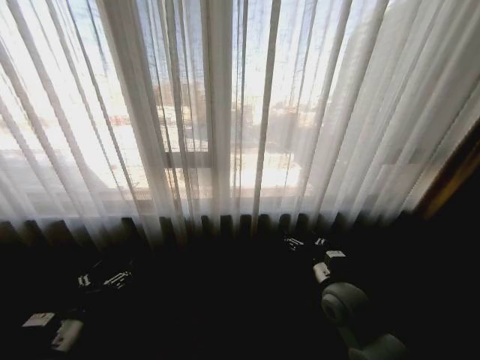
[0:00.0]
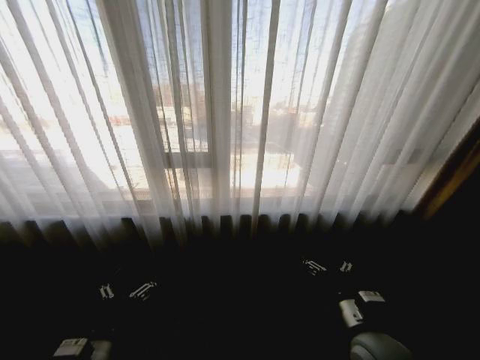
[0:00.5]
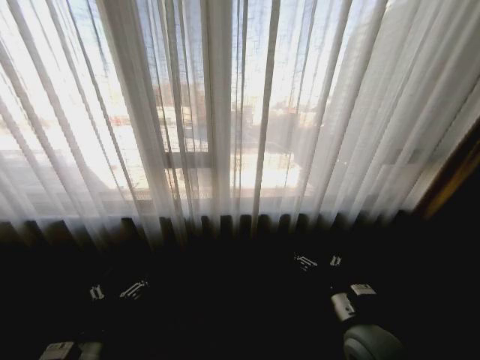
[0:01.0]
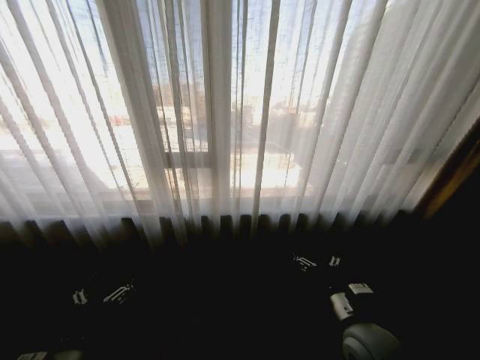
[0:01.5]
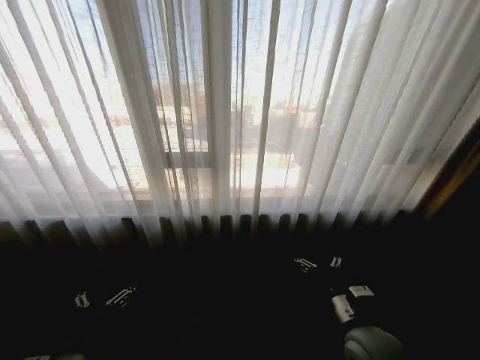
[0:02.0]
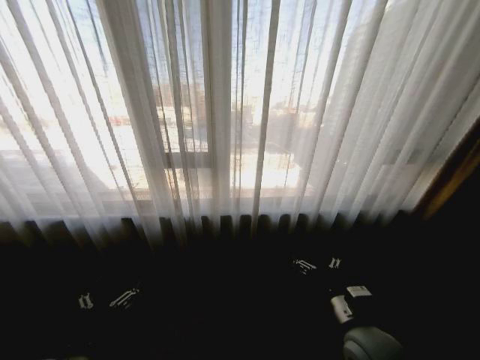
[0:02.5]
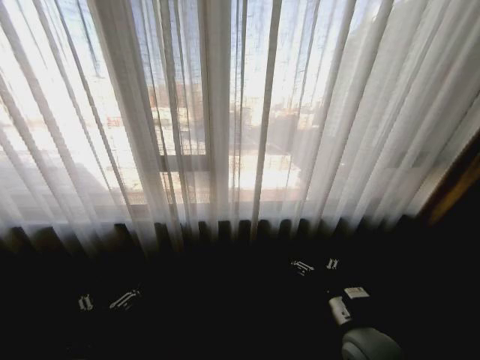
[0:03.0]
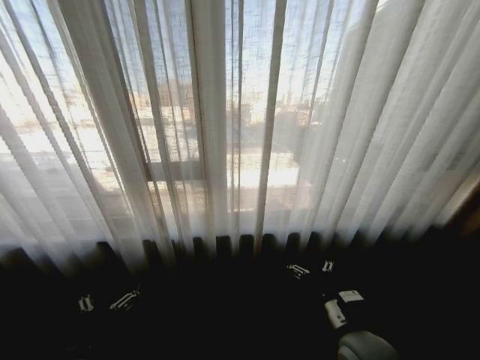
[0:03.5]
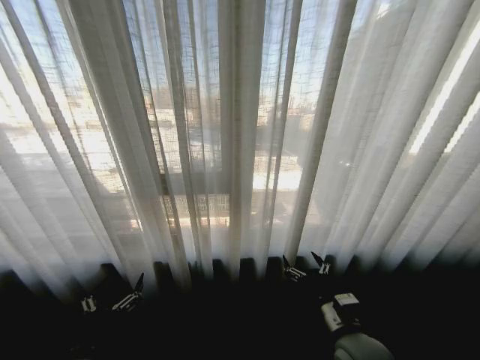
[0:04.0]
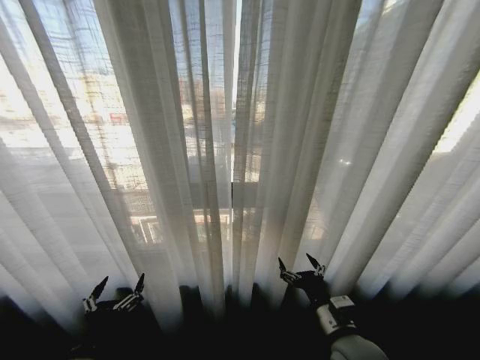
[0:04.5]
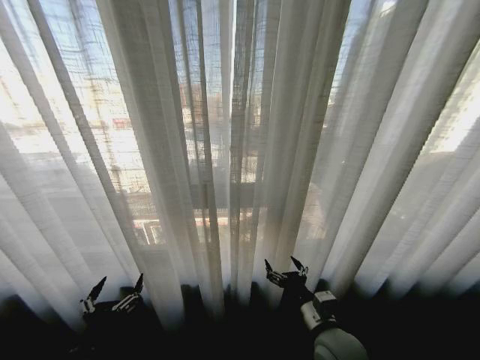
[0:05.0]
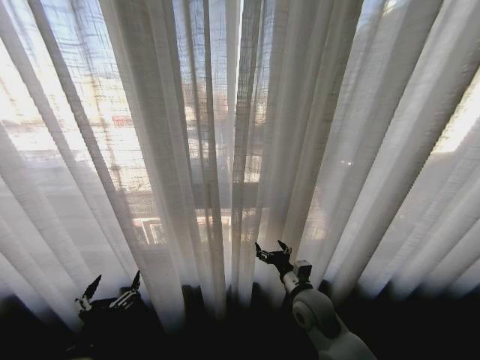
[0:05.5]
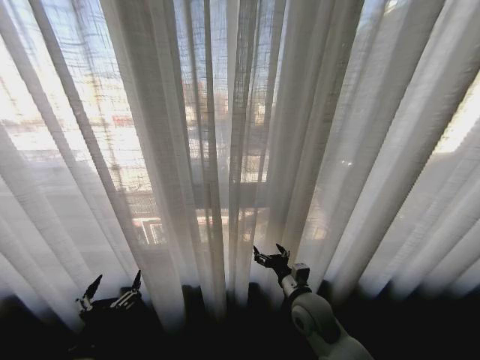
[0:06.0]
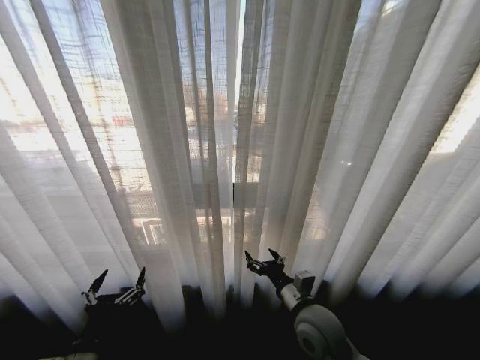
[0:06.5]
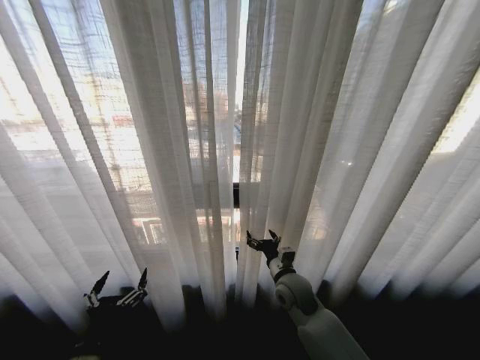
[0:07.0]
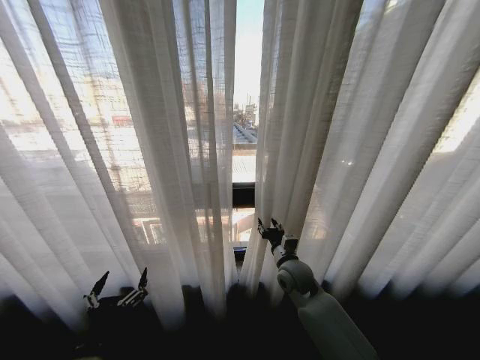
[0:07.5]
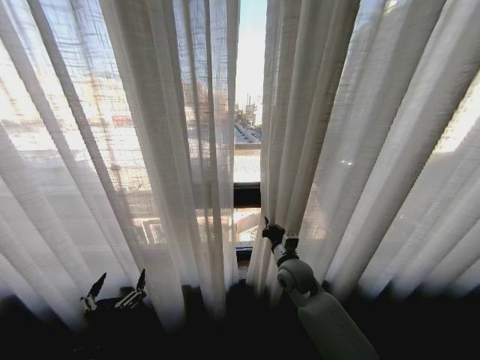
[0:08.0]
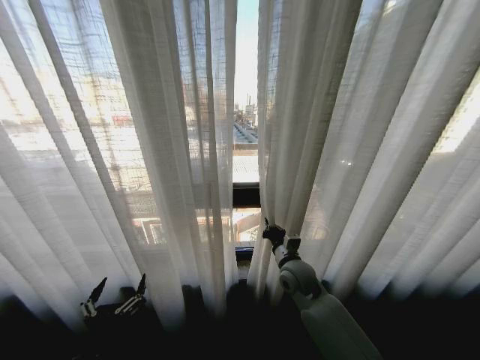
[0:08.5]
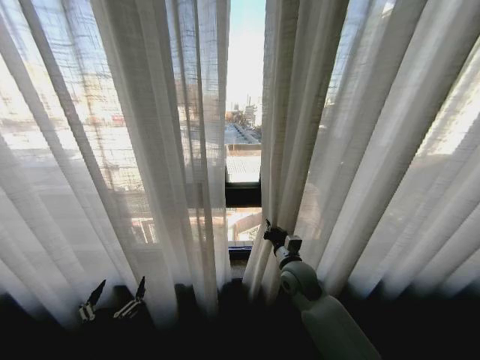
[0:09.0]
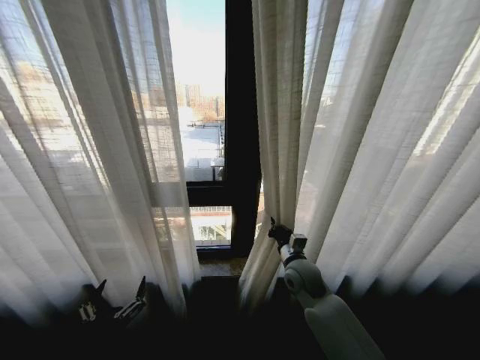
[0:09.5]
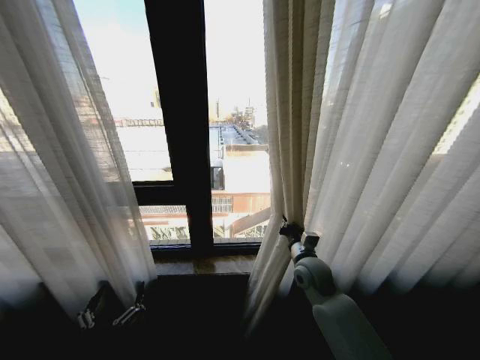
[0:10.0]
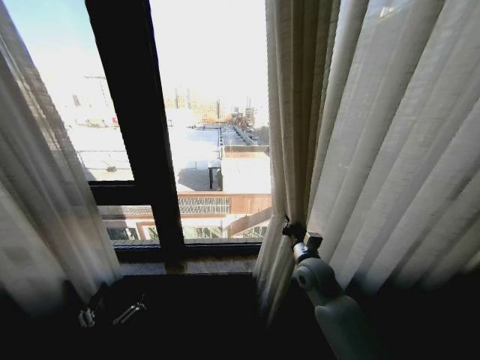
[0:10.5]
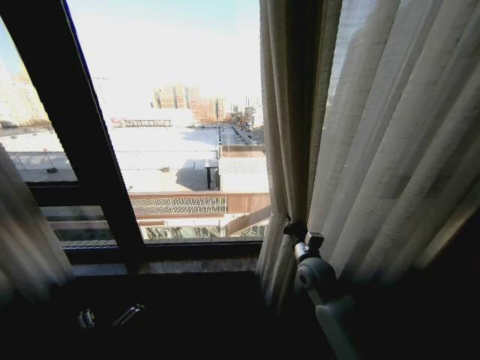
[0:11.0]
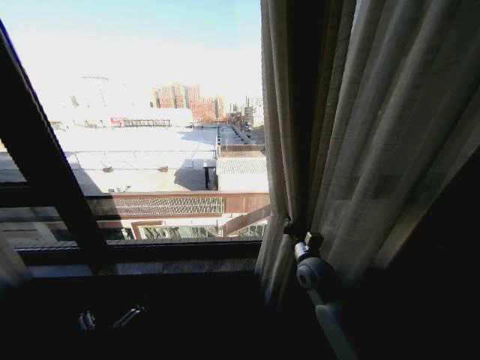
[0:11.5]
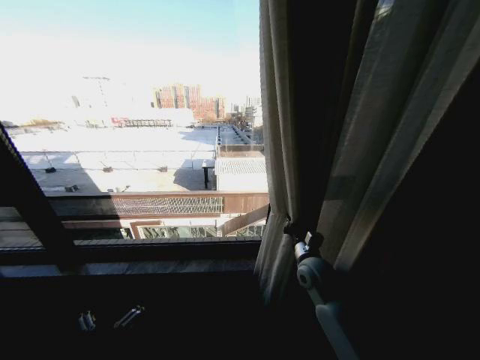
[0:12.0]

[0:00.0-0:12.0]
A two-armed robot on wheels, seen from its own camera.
Task of the whole recording: Open the curtains by pulling them apart, changing their state from closed to fully open.
0:04.0 to 0:06.0: The right gripper travels forward and to the left by approximately 10 cm.
0:06.0 to 0:08.0: The right gripper heads forward, covering approximately 10 cm, and closes.

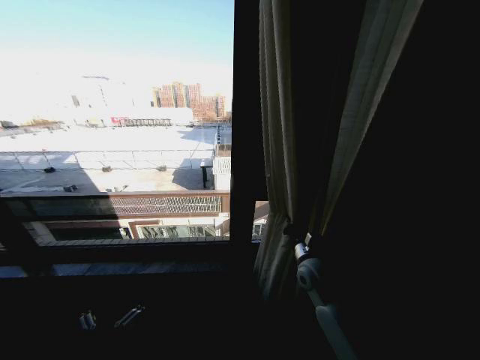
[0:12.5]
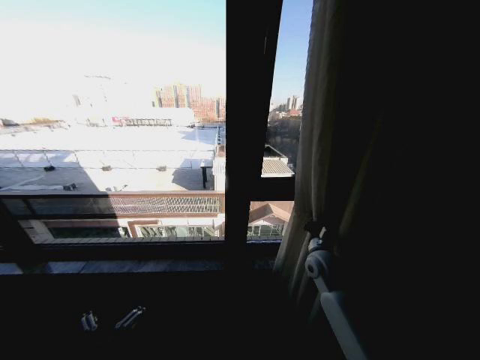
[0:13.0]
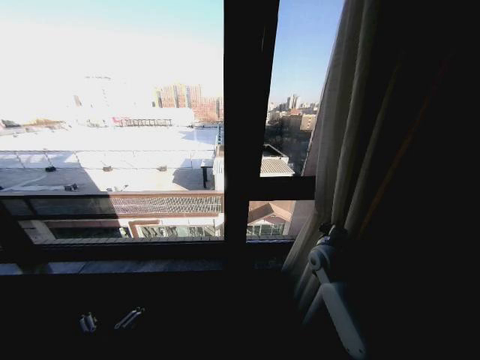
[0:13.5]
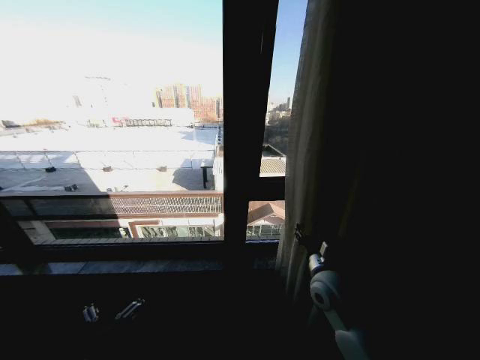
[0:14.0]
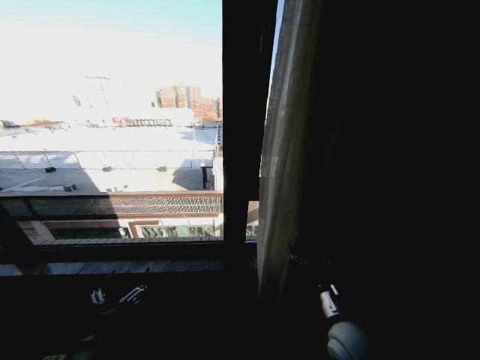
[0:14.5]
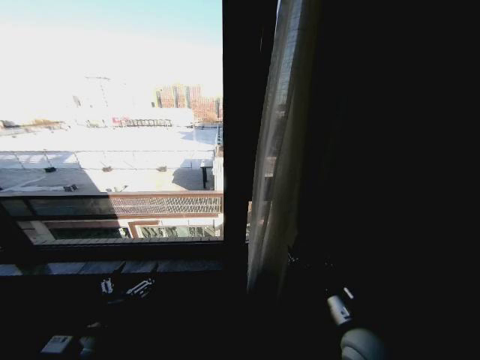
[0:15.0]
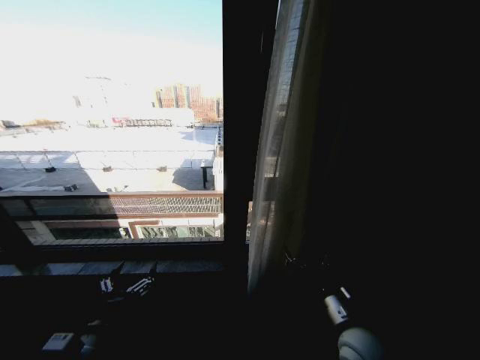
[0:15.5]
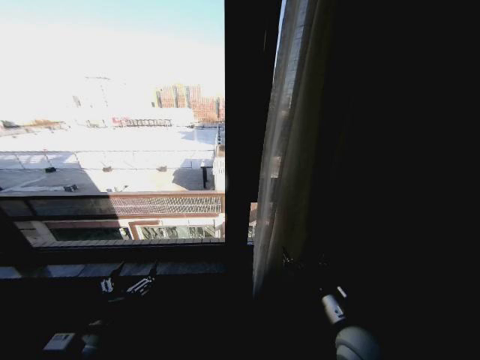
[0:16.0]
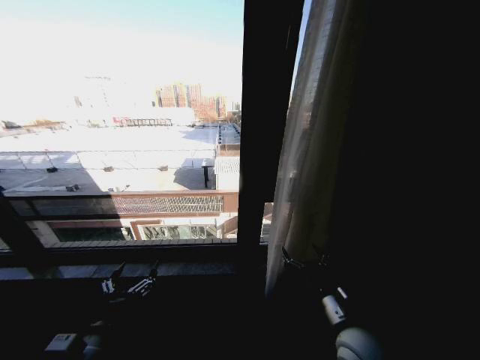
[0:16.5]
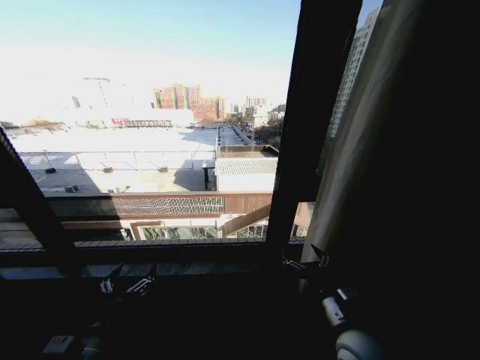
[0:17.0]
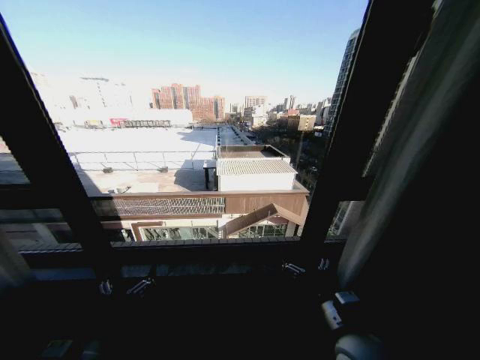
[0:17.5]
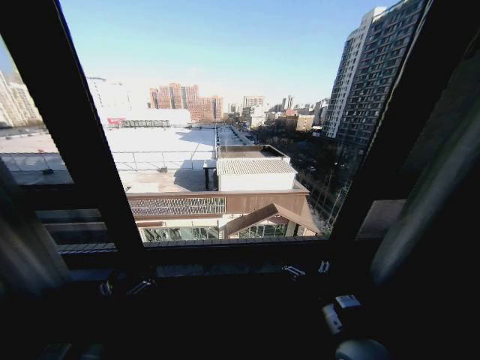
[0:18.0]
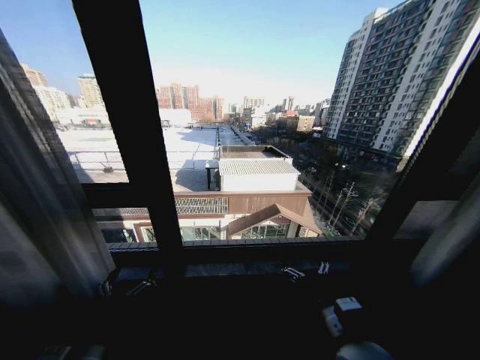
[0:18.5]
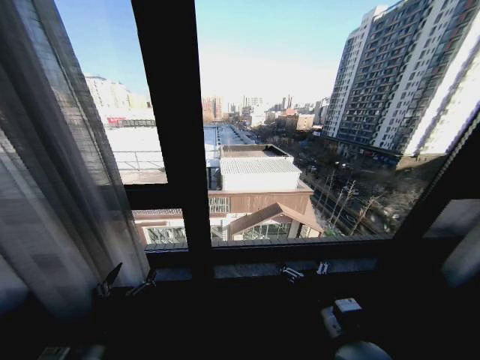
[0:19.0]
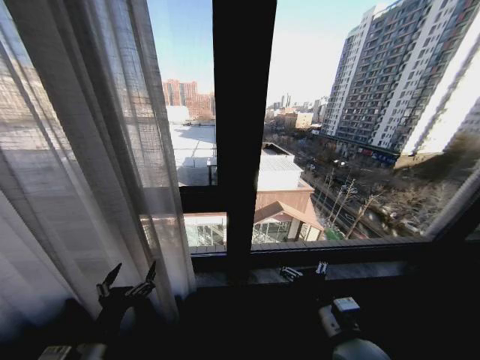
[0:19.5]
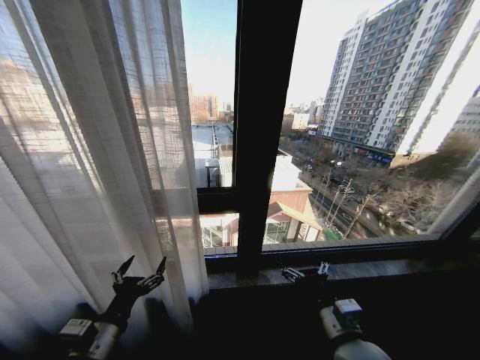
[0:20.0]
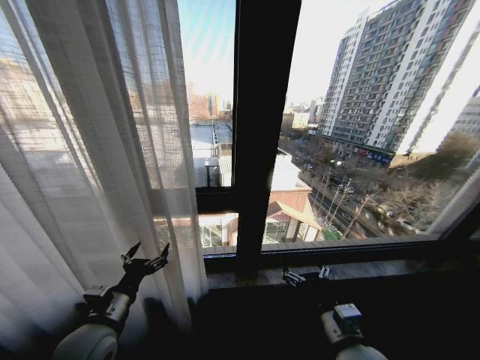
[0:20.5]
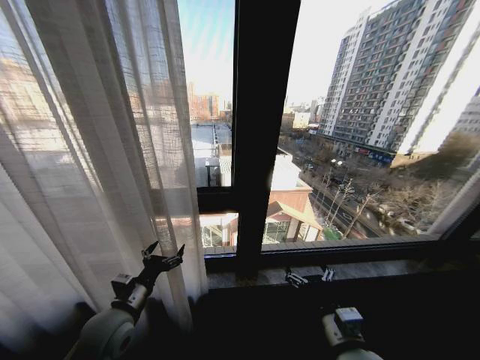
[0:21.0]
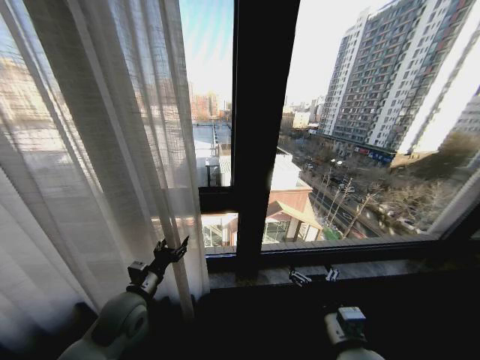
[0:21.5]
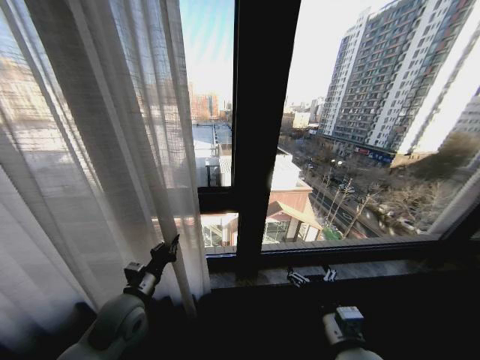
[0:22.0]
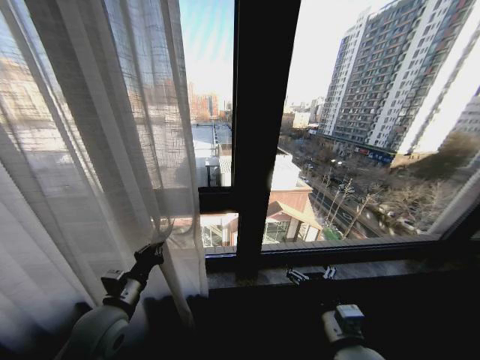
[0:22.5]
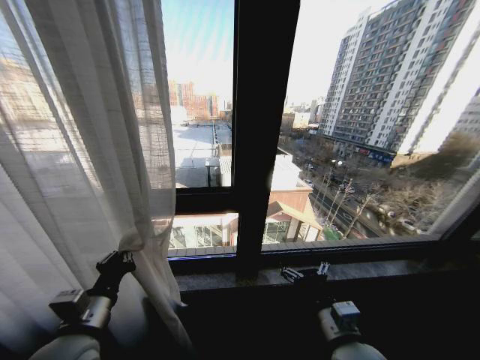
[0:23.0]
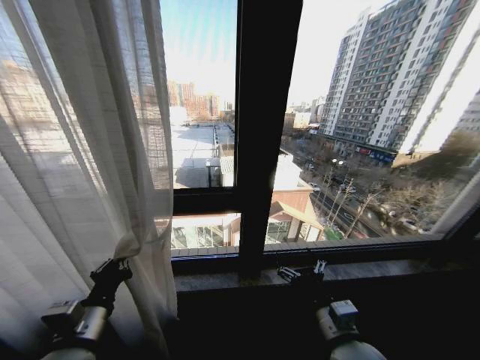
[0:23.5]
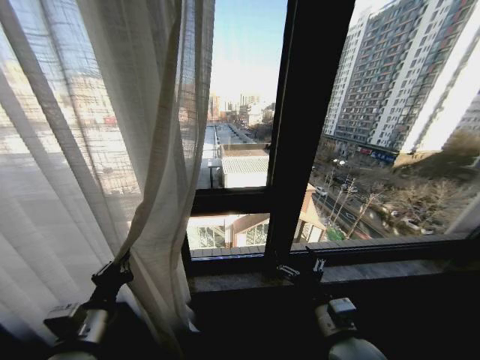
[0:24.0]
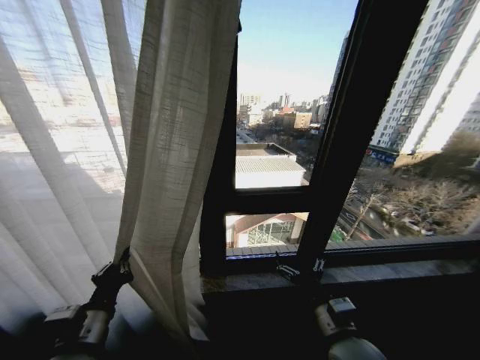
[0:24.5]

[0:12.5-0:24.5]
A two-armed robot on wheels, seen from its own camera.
Task of the whole recording: Open the curtains by pulling them apart, changing their state from closed to fully open.
0:12.5 to 0:14.5: The left gripper changes place by approximately 5 cm; the right gripper travels backward by roughly 15 cm, and opens.
0:14.5 to 0:16.5: There are only small adjustments of the grippers.
0:18.5 to 0:20.5: The left gripper heads forward, covering about 10 cm.
0:20.5 to 0:22.5: The left gripper closes up.
0:22.5 to 0:24.5: The left gripper shifts about 10 cm backward.

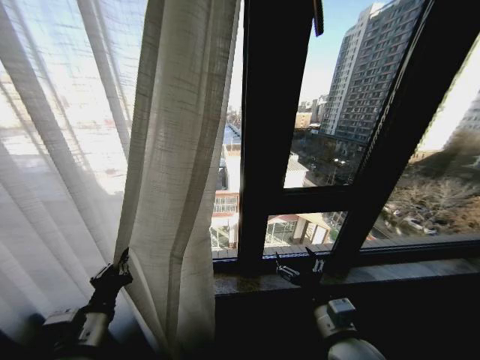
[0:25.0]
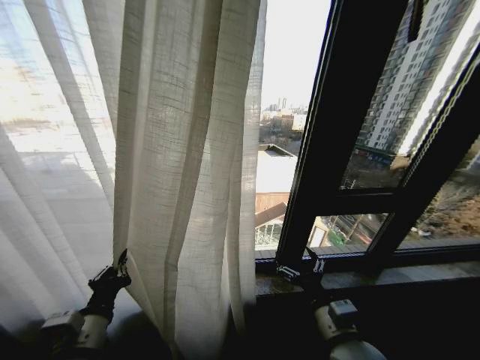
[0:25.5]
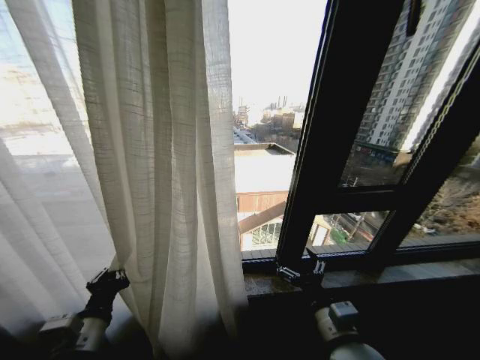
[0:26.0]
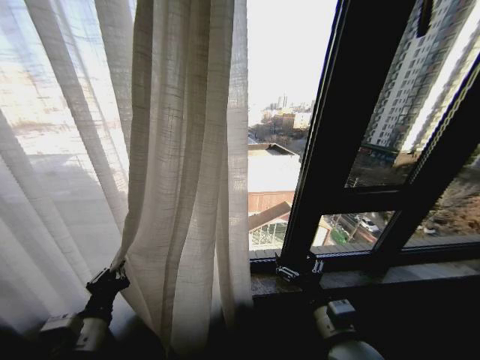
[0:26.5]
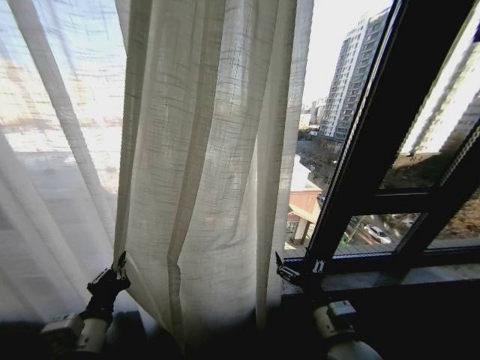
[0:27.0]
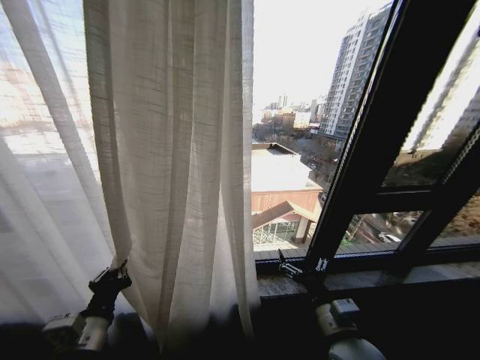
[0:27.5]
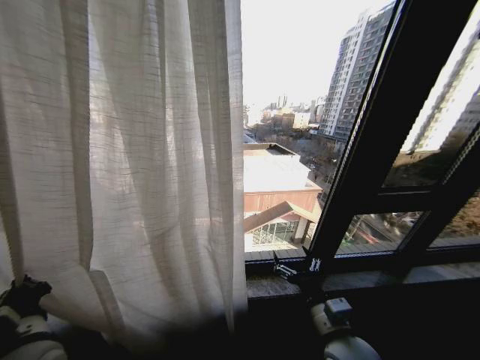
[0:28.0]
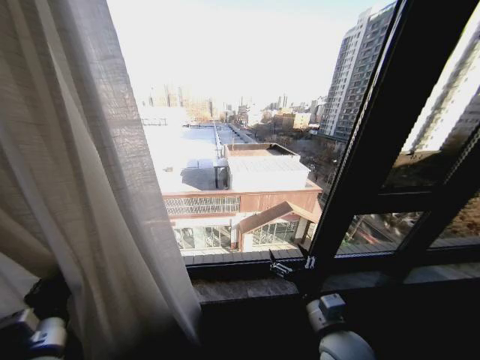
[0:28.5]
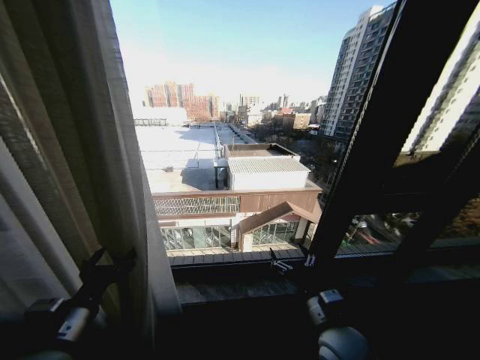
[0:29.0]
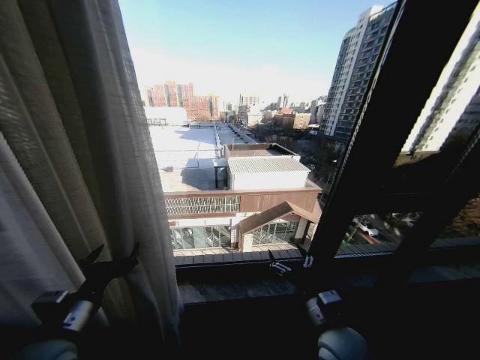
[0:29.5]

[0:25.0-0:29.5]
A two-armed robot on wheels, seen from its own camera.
Task of the whole recording: Open the curtains by pulling them apart, changing their state from closed to fully open.
0:27.0 to 0:29.5: The left gripper ends up some 5 cm from where it was, and opens up.
